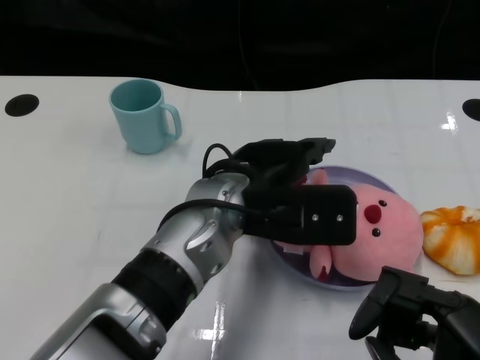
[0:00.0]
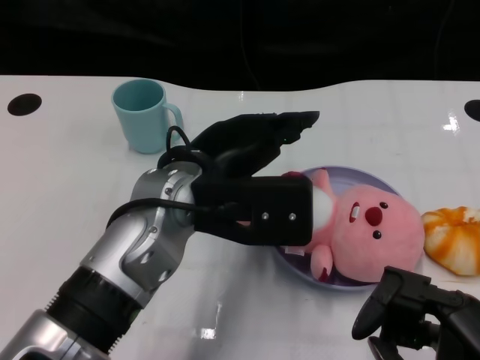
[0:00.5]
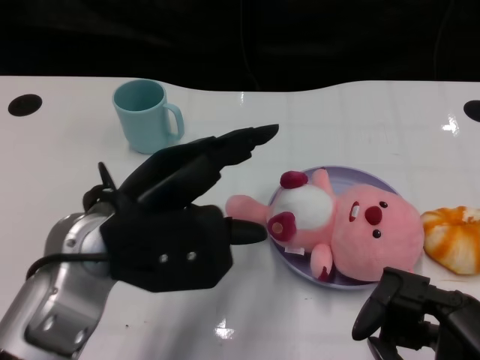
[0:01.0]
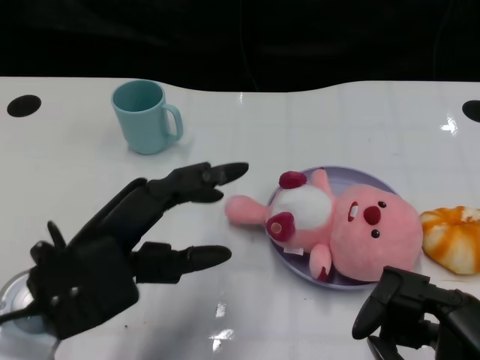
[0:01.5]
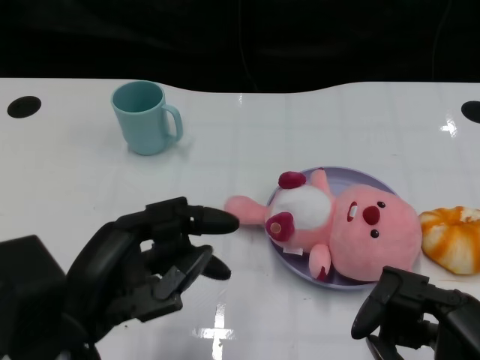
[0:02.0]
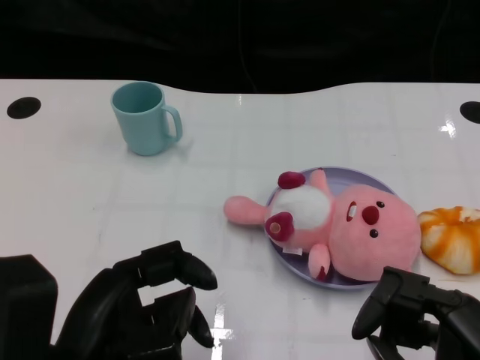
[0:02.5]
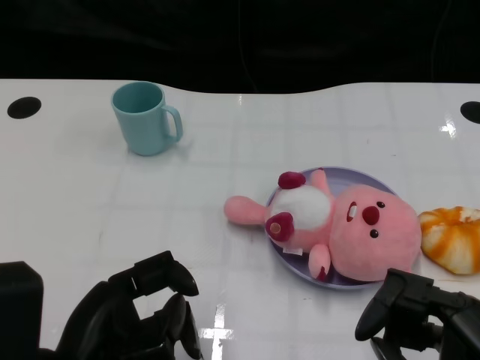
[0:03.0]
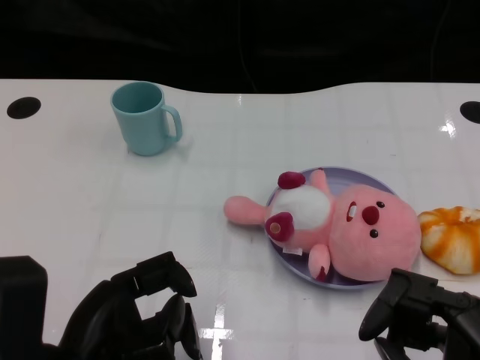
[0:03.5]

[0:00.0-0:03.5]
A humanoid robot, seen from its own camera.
Task of the whole recording: Pick up the doll on one side of the plate and place it into the plate.
0:00.0 to 0:02.0: The left hand is displaced to the left and backward by roughly 20 cm.

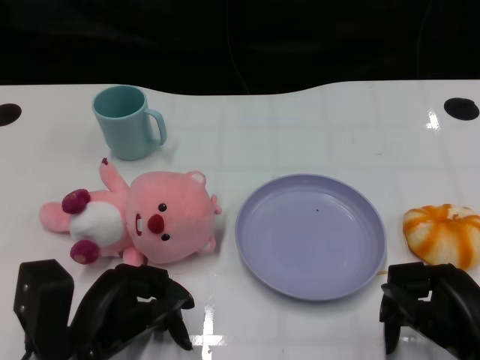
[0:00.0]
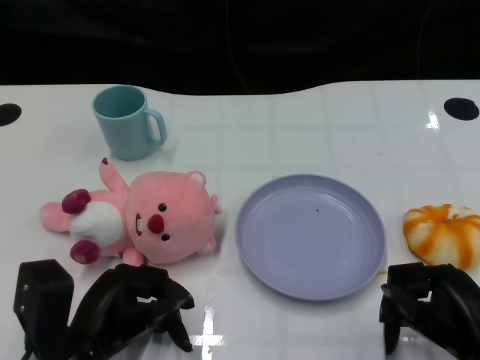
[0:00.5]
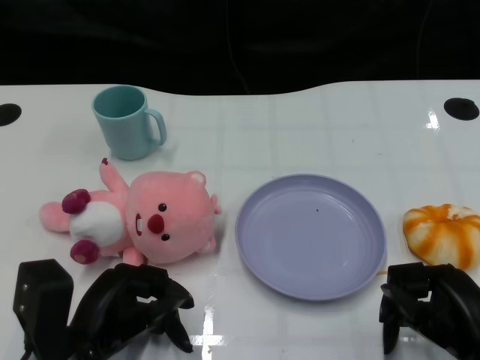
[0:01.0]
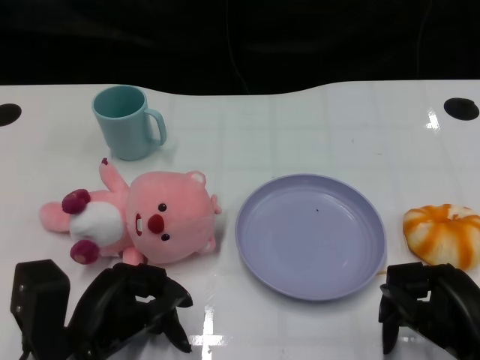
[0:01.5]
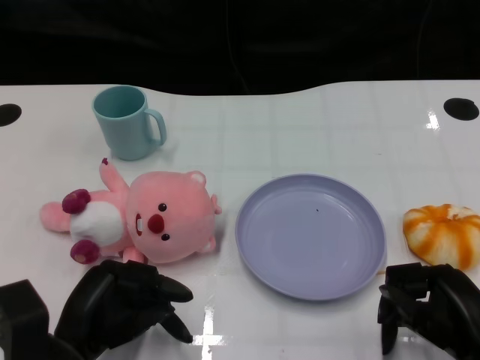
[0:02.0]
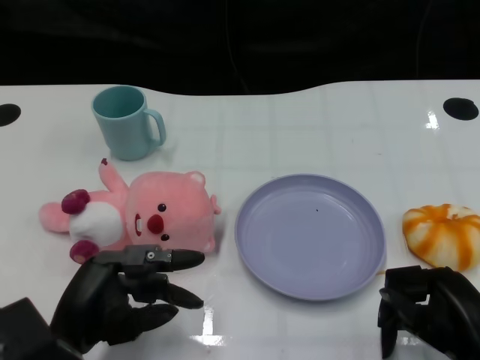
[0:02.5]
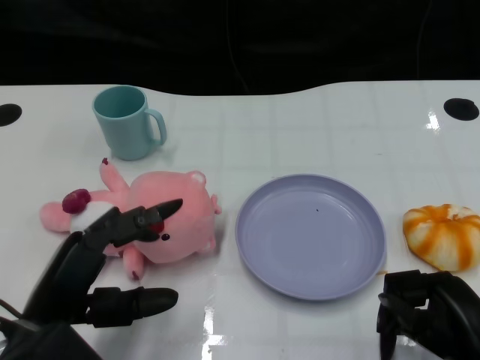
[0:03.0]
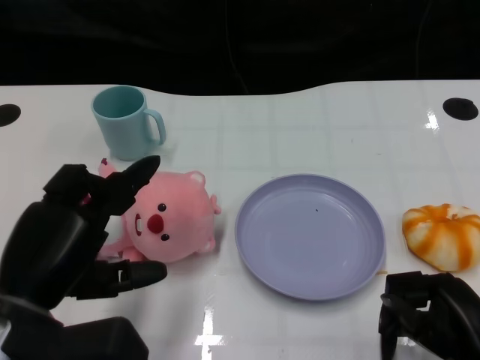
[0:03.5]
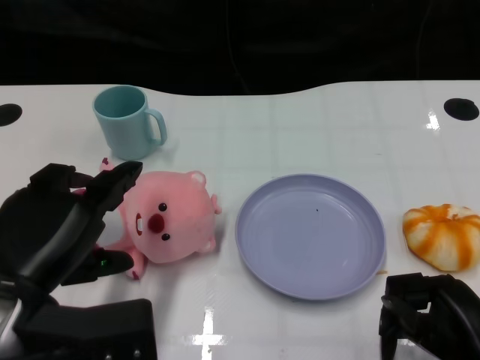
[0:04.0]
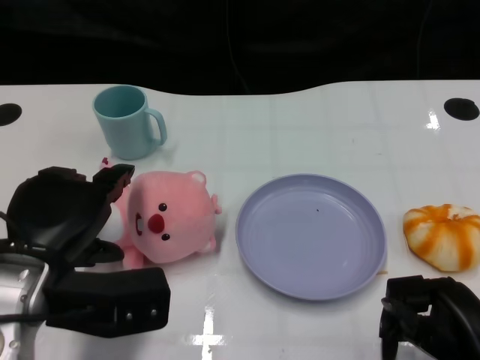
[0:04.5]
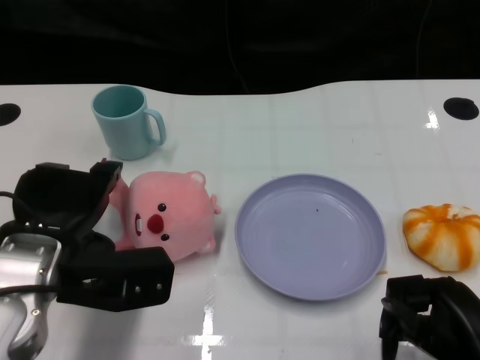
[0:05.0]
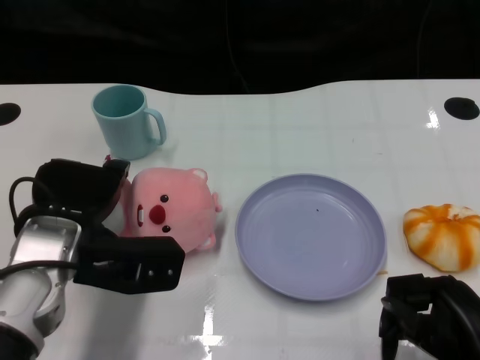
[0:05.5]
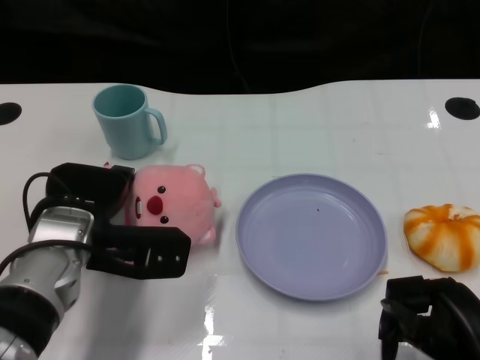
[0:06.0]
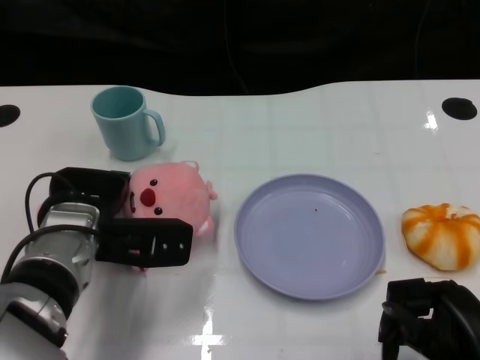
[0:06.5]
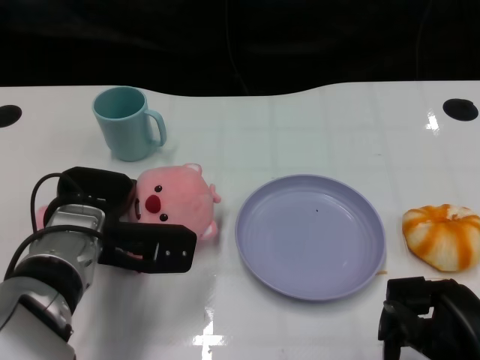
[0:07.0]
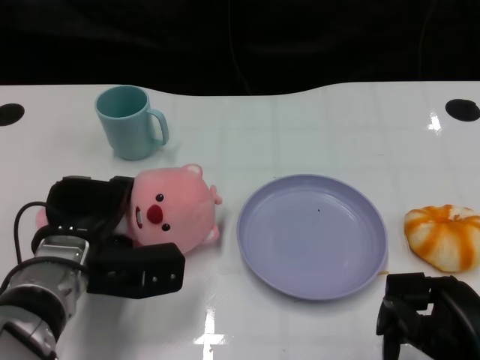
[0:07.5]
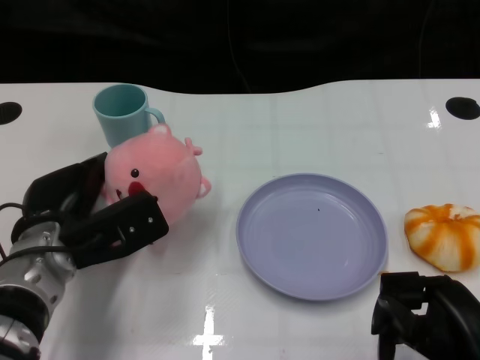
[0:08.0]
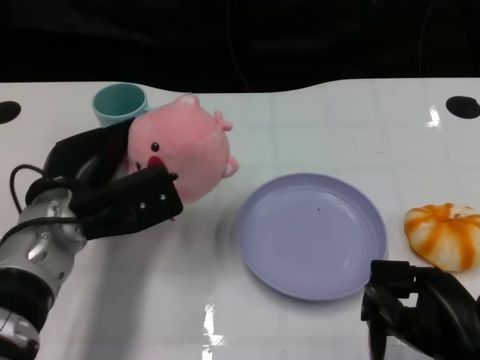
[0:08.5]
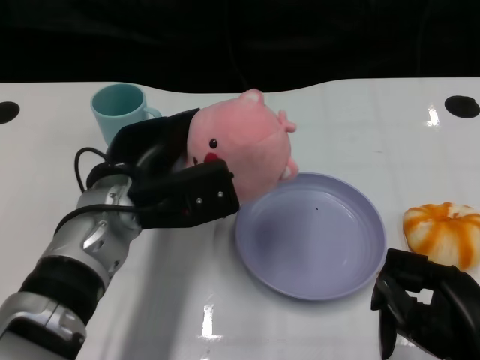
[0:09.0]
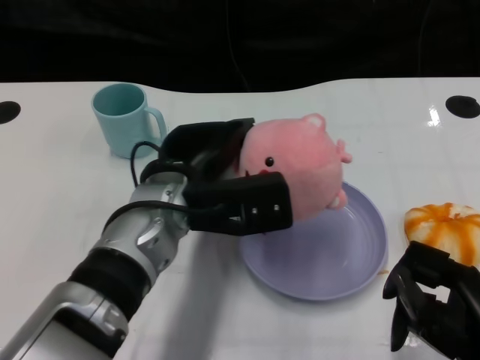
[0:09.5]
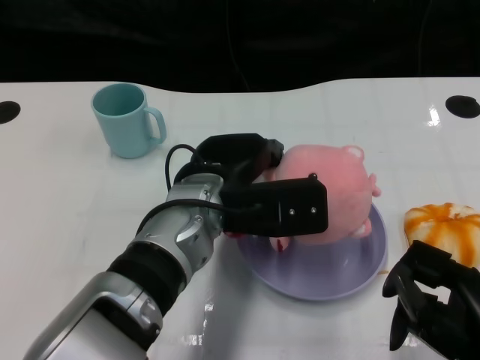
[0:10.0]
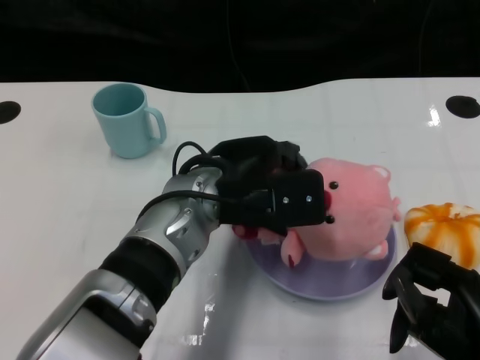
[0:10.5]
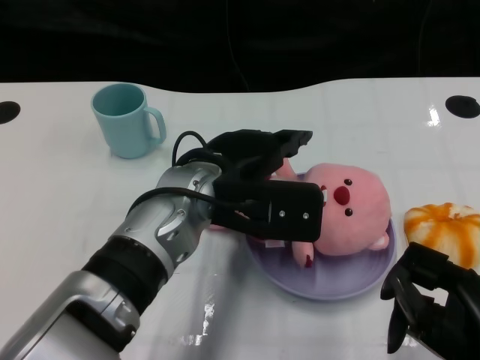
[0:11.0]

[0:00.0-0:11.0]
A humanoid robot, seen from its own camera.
Task of the whole recording: Pick up the doll on one side of the plate and place it into the plate.
Step, 0:01.5 to 0:08.0: Grasp the pink doll with the left gripper.
Step, 0:08.5 to 0:10.5: Place the pink doll into the plate with the left gripper.
0:02.0 to 0:03.5: The left hand is displaced upward by about 10 cm.
0:03.5 to 0:05.5: The left hand shifts some 10 cm forward.
0:05.5 to 0:07.5: The left hand shifts roughly 5 cm downward.
0:07.5 to 0:09.0: The left hand heads upward and to the right, covering approximately 10 cm.
0:09.0 to 0:11.0: The left hand travels to the right by roughly 10 cm.

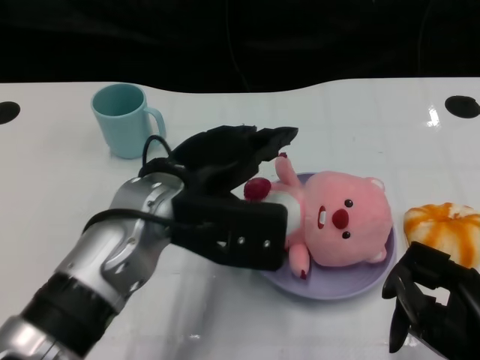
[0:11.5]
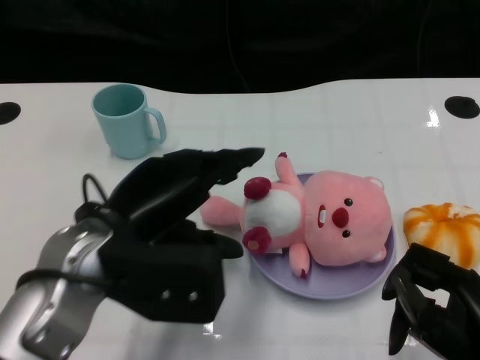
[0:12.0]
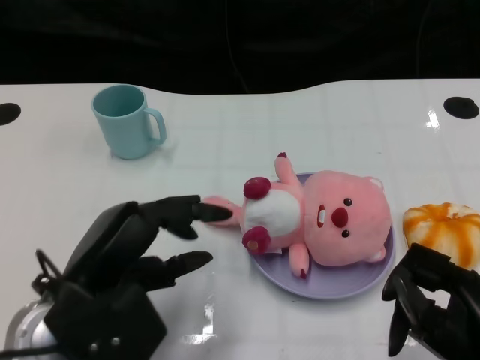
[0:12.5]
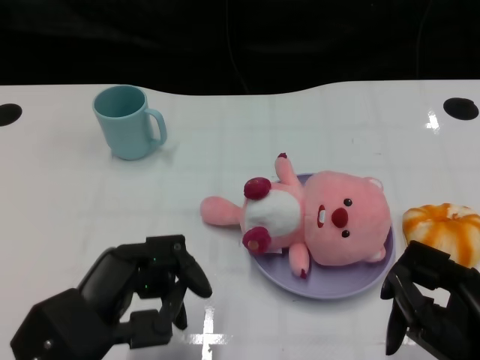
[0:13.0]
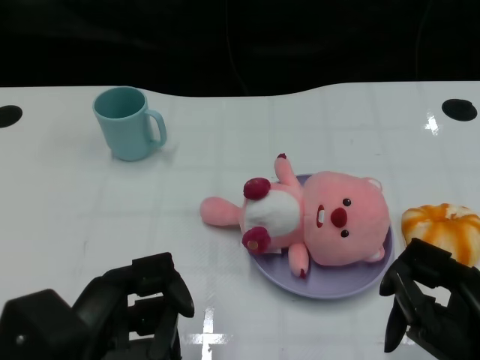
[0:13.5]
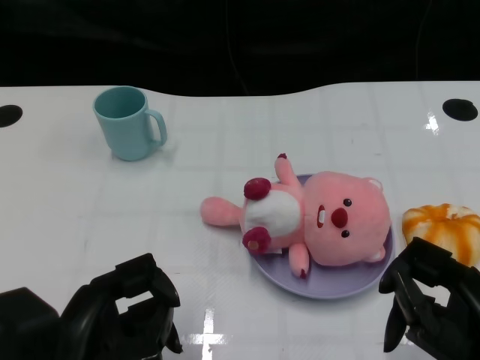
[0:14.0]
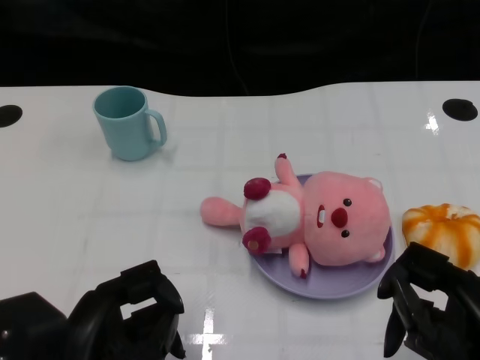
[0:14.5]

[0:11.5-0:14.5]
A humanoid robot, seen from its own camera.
Task of the whole recording: Pick up the doll on one side of the plate and place it into the plate.
0:11.5 to 0:13.0: The left hand goes approximately 15 cm backward, to the left and downward.

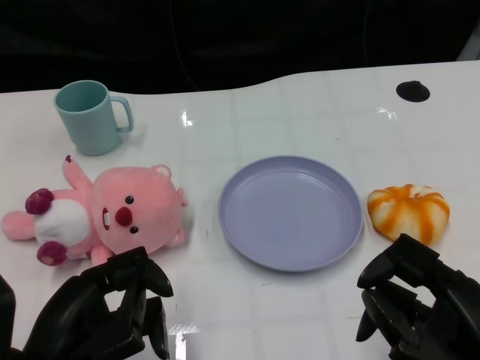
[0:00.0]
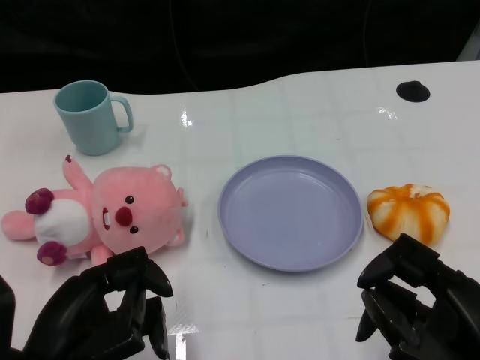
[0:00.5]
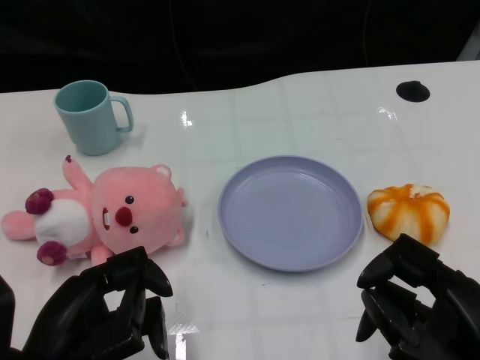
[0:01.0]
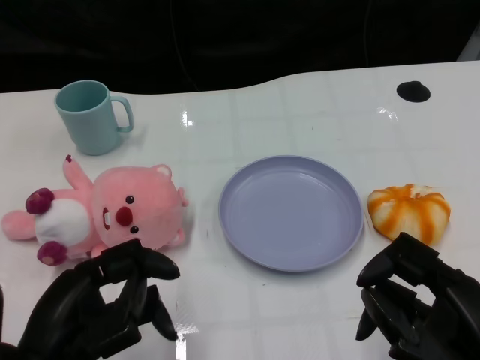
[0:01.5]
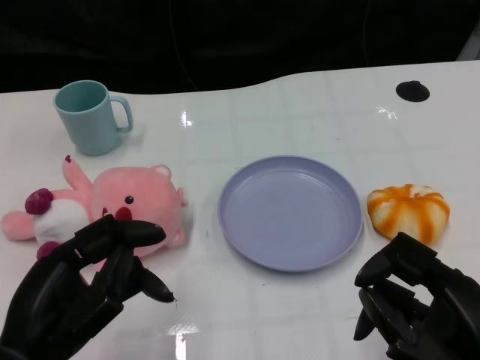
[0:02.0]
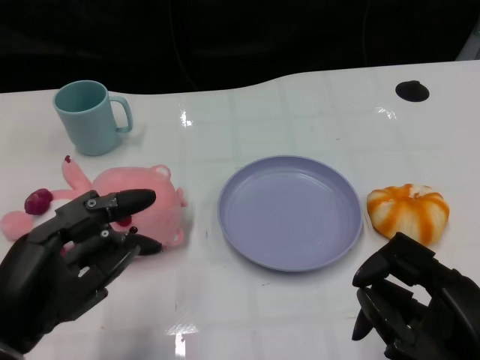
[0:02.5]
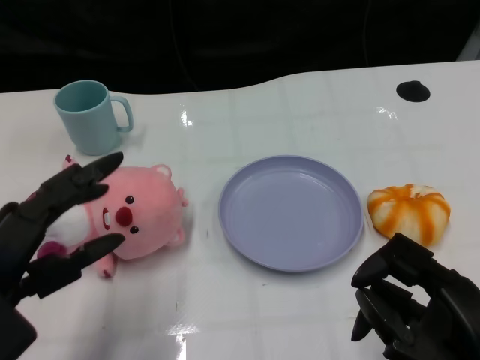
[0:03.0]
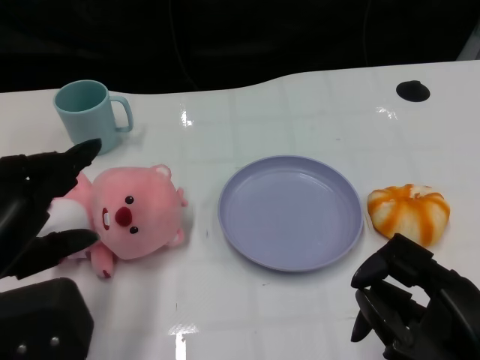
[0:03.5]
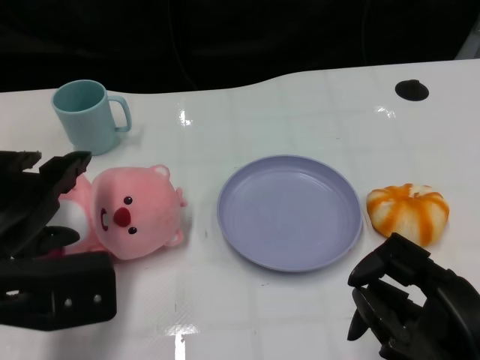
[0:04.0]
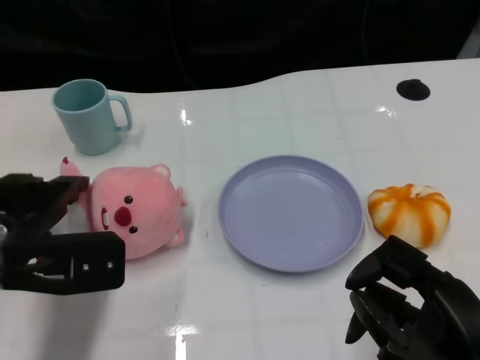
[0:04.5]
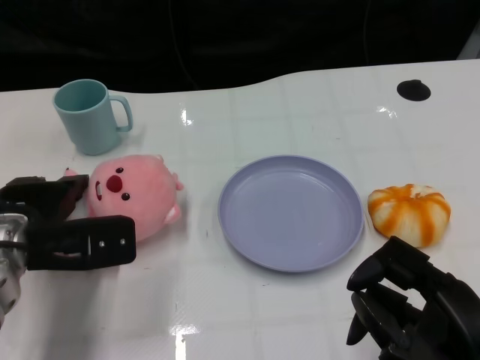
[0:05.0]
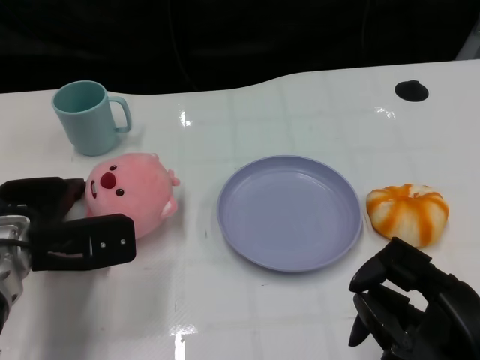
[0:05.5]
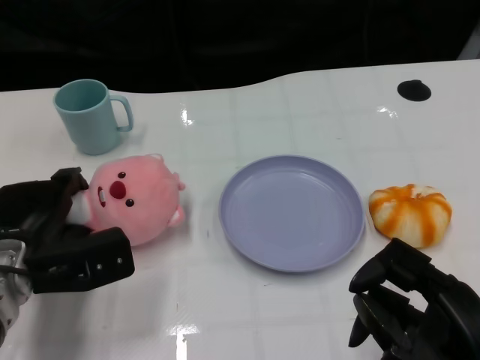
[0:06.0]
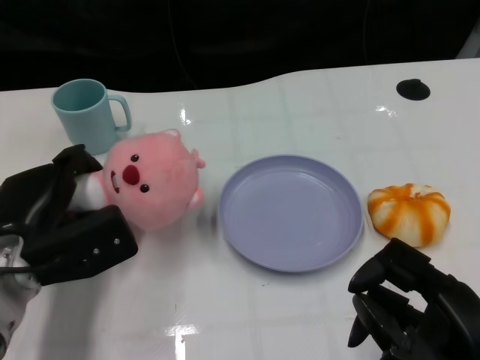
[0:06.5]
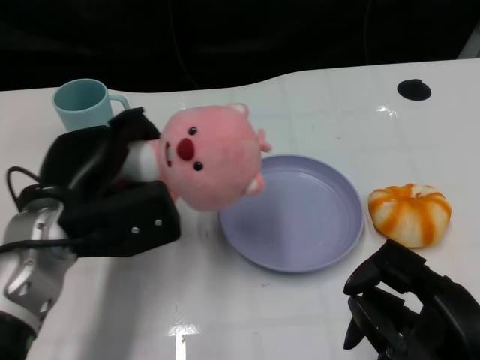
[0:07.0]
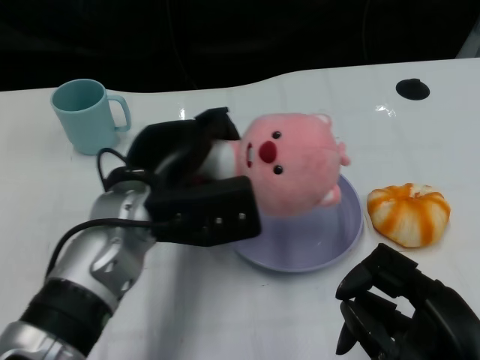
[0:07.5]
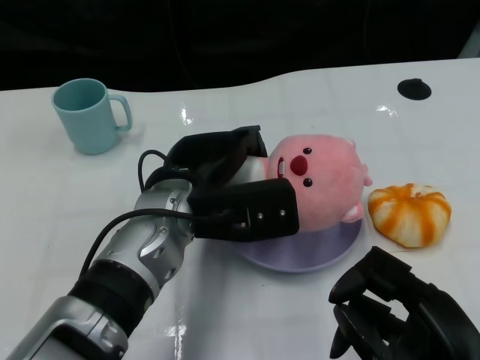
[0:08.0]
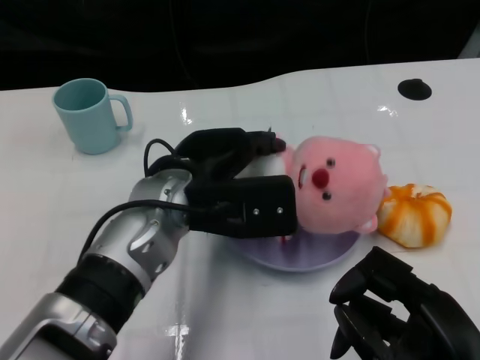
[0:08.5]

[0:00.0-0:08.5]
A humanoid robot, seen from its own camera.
Task of the whole recording: Pick up the doll on one side of the plate and place it into the plate.
Step, 0:01.5 to 0:06.5: Grasp the pink doll with the left gripper.
0:02.0 to 0:04.0: The left hand shifts some 10 cm forward and upward.
0:04.0 to 0:06.5: The left hand shifts approximately 10 cm downward and forward.
0:06.5 to 0:08.5: The left hand moves to the right and upward, some 15 cm.
